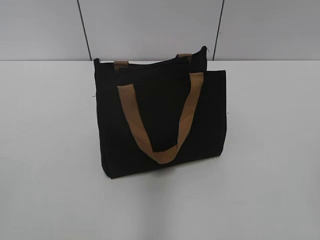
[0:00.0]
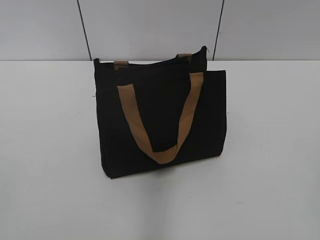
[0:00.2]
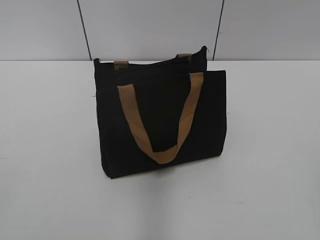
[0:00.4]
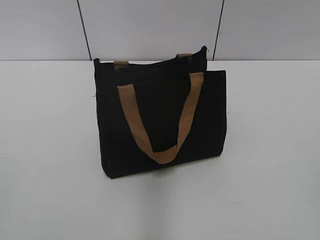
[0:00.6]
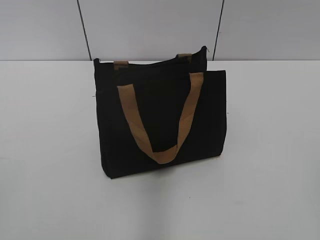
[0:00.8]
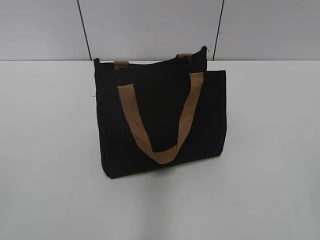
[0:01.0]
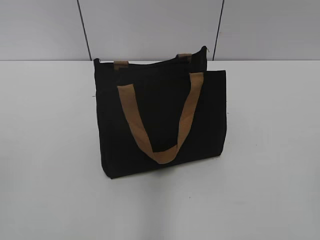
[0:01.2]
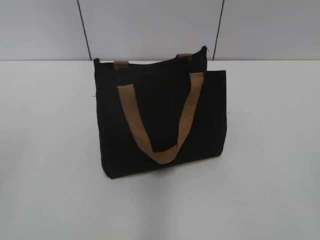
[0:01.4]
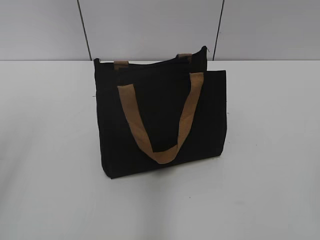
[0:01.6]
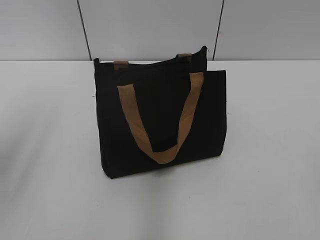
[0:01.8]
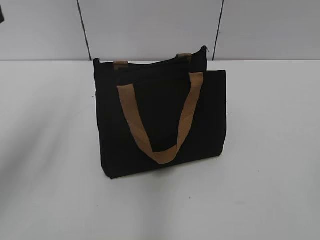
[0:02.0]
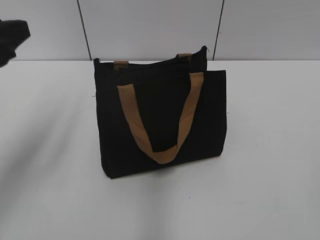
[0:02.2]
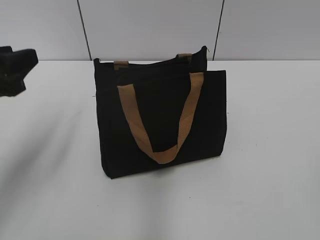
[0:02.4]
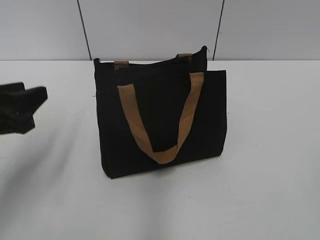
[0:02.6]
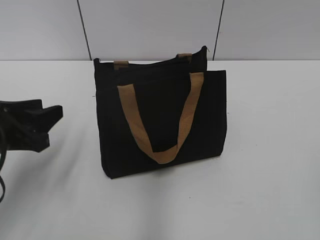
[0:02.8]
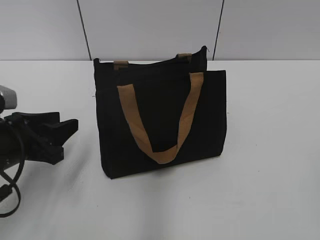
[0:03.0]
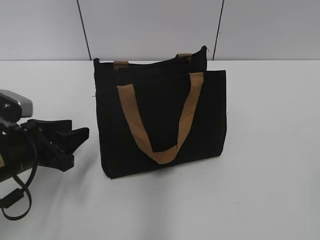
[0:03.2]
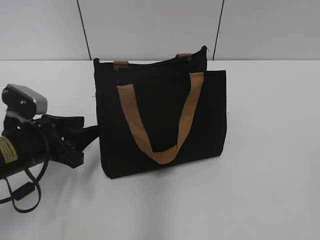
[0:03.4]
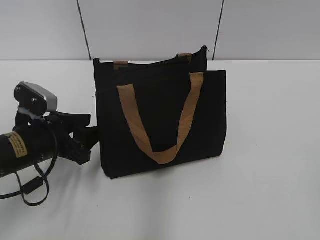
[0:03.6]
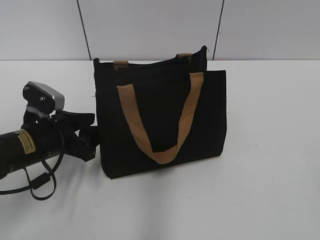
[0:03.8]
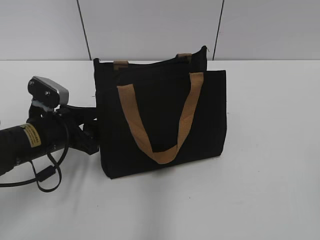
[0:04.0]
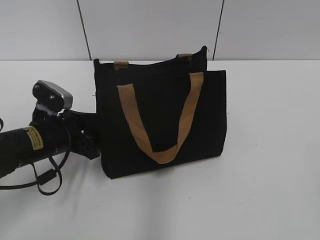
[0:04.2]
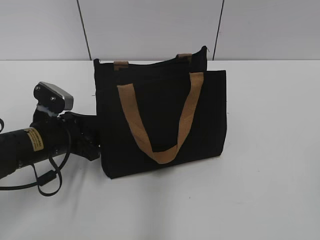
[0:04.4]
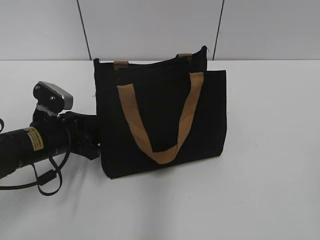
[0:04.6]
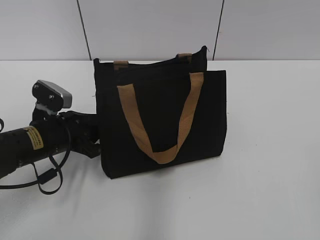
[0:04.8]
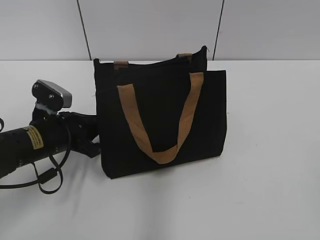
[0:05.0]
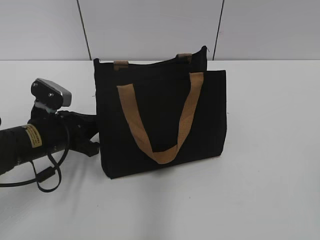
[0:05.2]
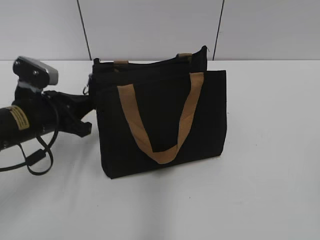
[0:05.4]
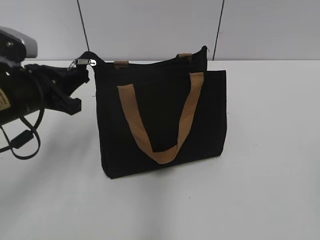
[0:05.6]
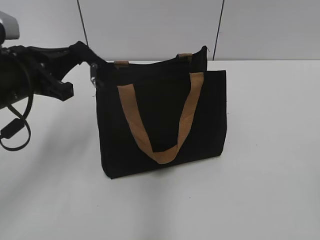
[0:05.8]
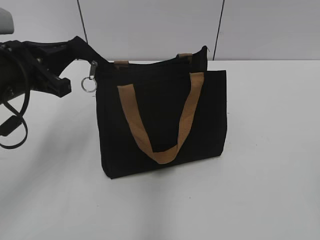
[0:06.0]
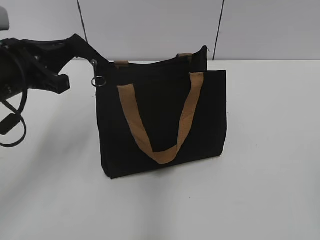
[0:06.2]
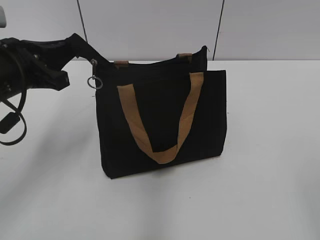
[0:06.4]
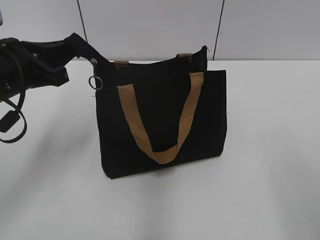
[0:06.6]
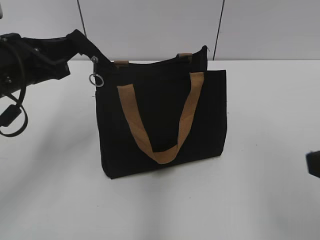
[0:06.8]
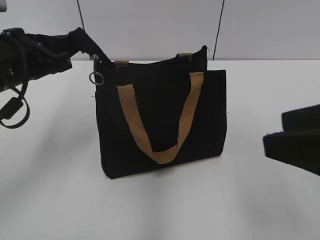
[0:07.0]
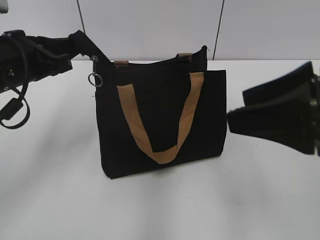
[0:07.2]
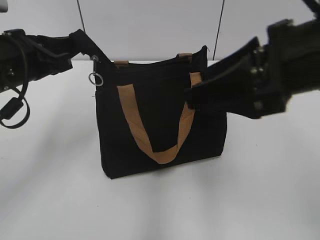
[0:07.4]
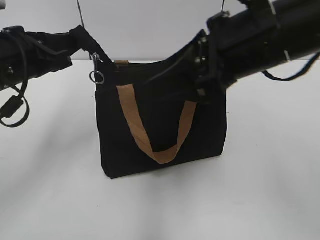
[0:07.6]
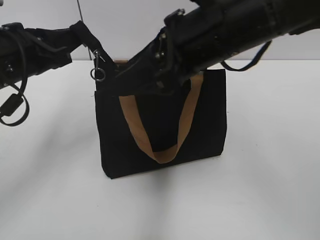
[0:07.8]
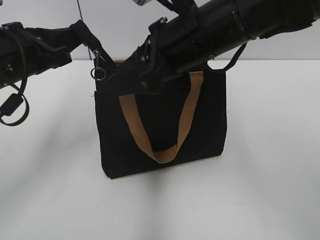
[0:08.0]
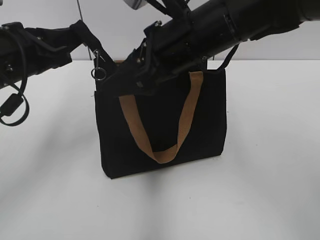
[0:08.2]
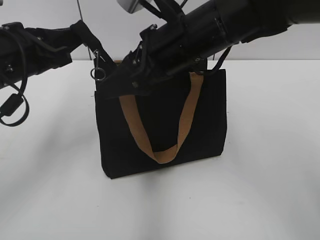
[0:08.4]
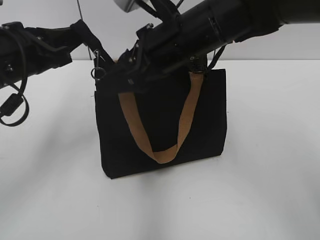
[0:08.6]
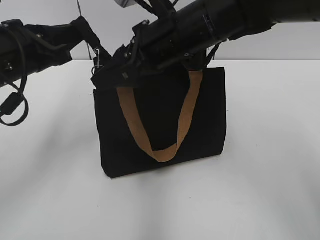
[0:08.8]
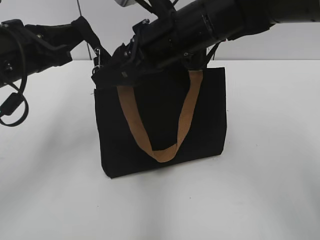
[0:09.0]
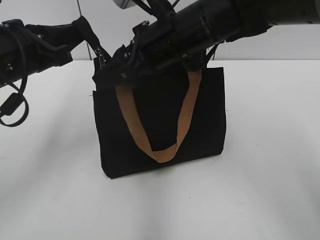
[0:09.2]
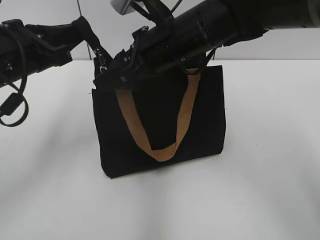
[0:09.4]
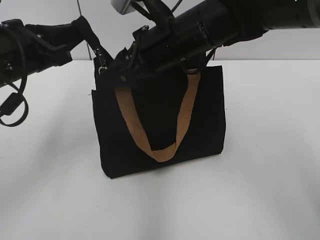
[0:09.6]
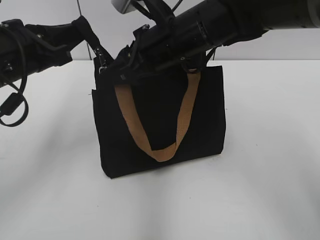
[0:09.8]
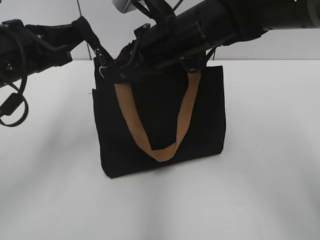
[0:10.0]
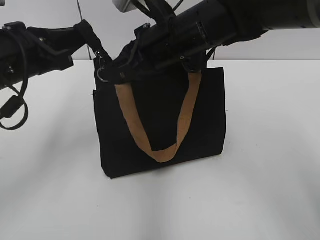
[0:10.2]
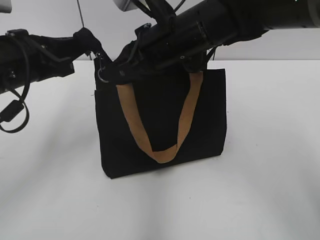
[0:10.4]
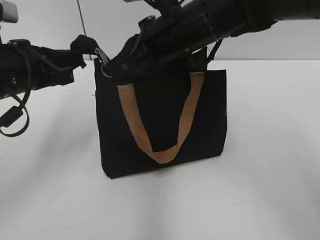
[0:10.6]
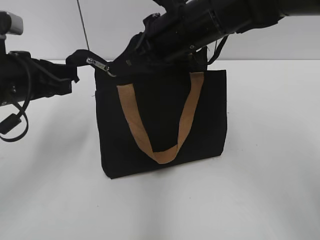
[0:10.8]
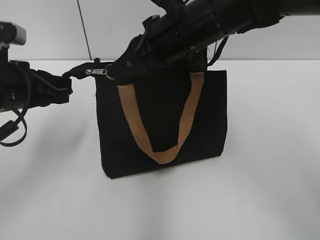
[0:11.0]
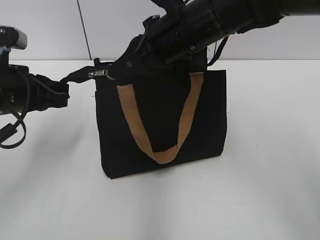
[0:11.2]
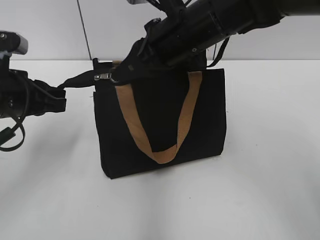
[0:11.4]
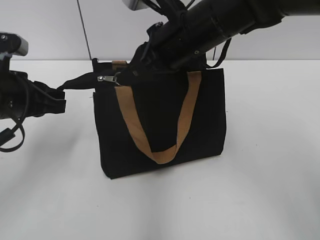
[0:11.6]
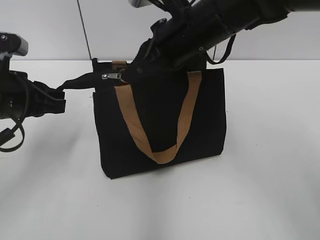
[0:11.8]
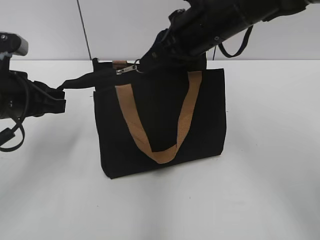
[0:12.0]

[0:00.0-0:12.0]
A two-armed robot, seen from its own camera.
0:01.6 to 0:03.0: The left gripper shifts some 20 cm downward and forward.
0:03.0 to 0:04.4: The left gripper goes approximately 10 cm forward and downward.
0:04.4 to 0:06.0: The left gripper heads upward, covering roughly 15 cm, and closes up.
0:06.0 to 0:07.6: The right gripper travels forward and to the left by about 30 cm.
0:07.6 to 0:09.0: The right gripper goes some 15 cm forward and to the left.
0:09.0 to 0:10.4: The right gripper closes.

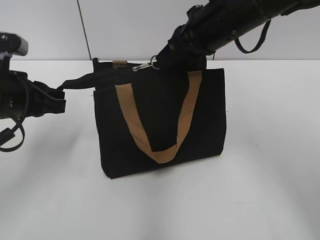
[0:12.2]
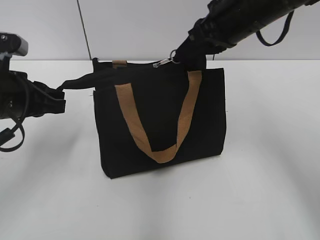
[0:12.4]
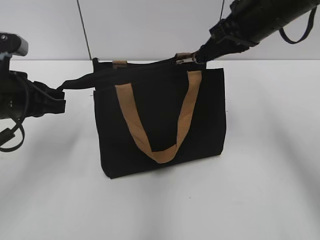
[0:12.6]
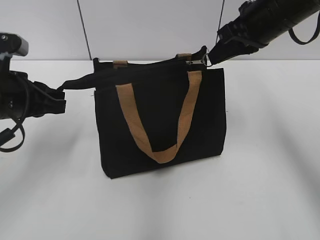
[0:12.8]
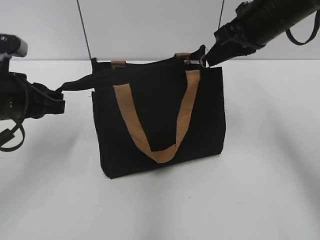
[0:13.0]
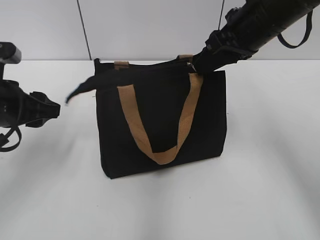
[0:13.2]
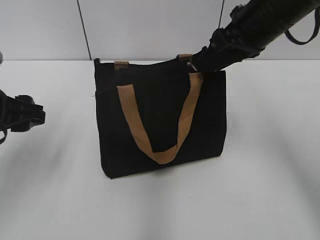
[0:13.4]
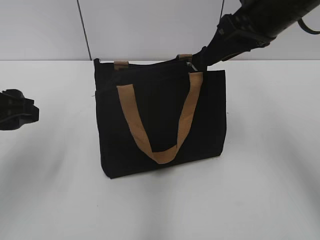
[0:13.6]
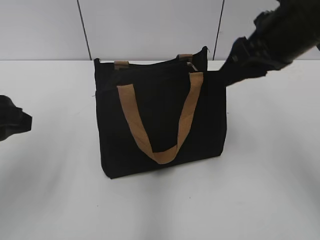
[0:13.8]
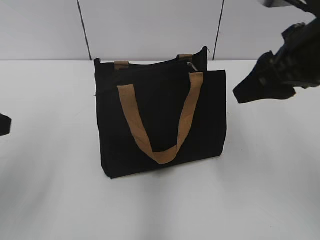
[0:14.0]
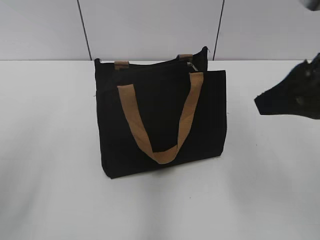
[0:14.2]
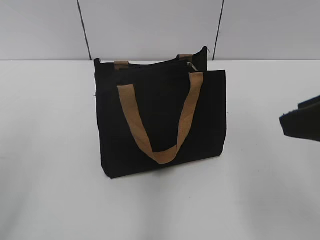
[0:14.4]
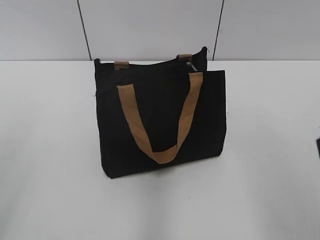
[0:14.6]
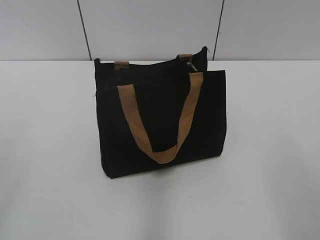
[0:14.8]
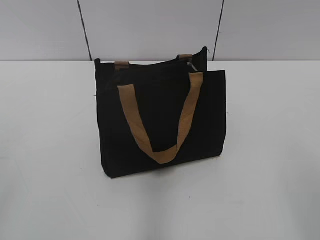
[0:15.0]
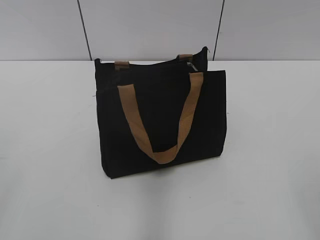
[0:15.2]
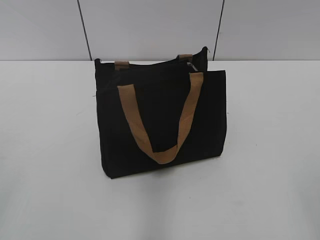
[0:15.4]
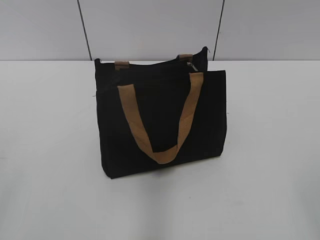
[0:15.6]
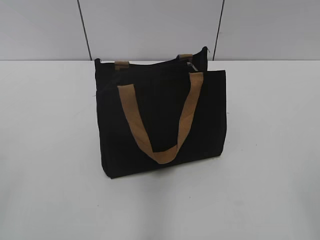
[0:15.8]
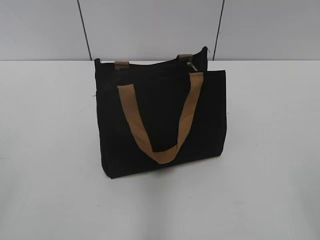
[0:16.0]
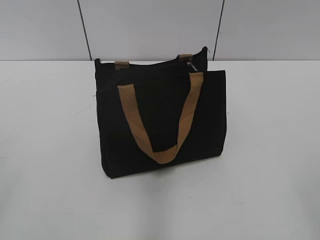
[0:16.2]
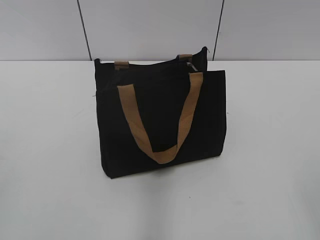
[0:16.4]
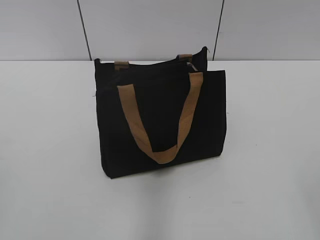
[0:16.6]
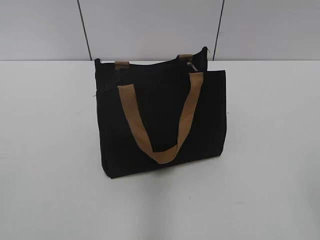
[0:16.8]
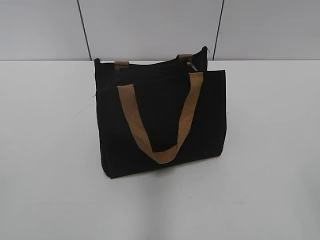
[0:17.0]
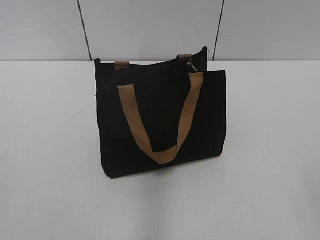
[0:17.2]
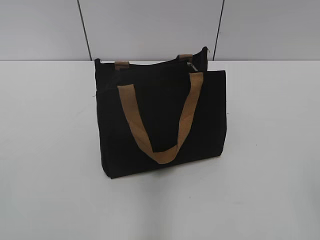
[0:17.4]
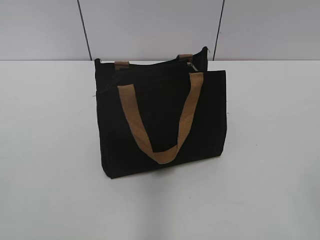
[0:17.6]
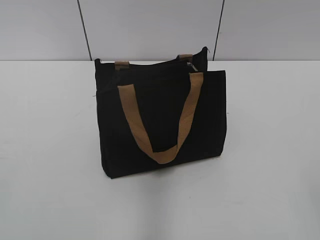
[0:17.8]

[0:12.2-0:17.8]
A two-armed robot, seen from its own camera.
0:12.2 to 0:13.6: The left gripper opens; the right gripper travels to the right by approximately 5 cm, and opens up.
0:13.6 to 0:15.0: The right gripper goes roughly 30 cm backward. Meanwhile the left gripper moves backward, roughly 20 cm.

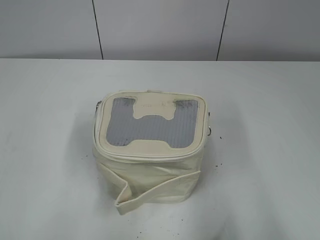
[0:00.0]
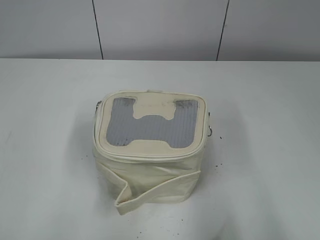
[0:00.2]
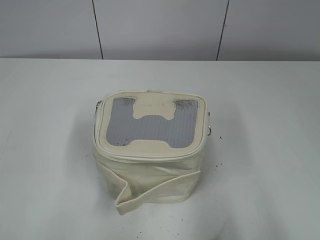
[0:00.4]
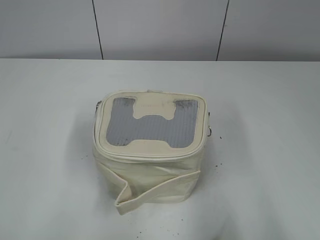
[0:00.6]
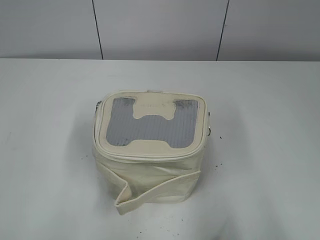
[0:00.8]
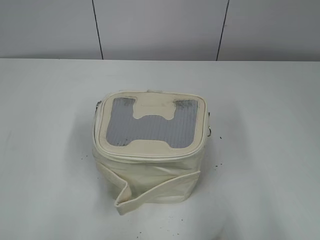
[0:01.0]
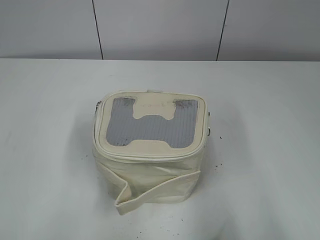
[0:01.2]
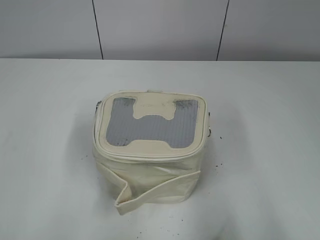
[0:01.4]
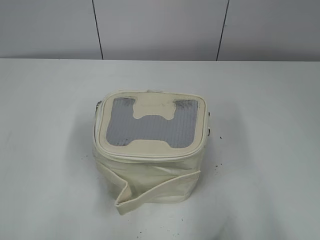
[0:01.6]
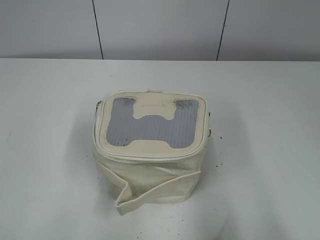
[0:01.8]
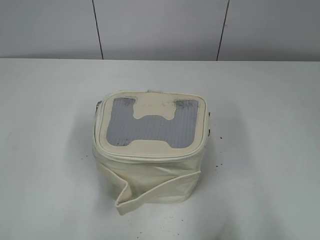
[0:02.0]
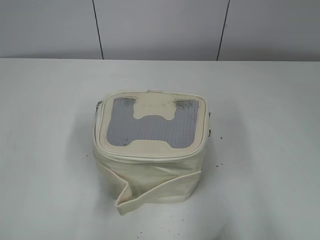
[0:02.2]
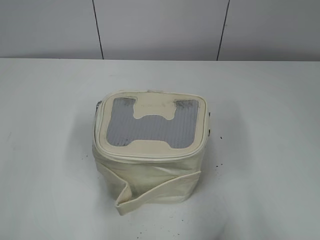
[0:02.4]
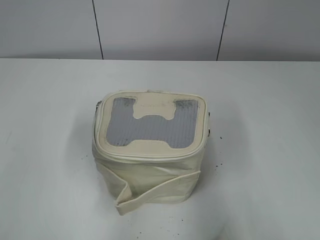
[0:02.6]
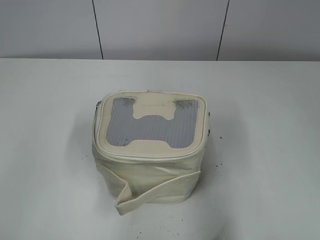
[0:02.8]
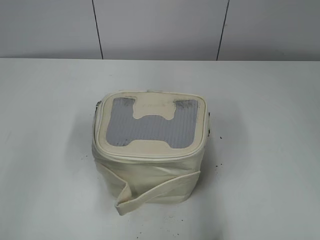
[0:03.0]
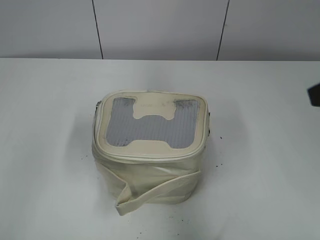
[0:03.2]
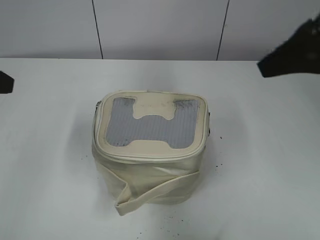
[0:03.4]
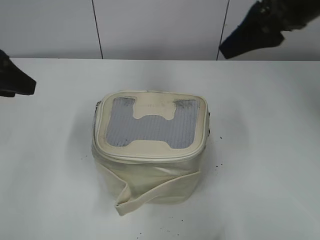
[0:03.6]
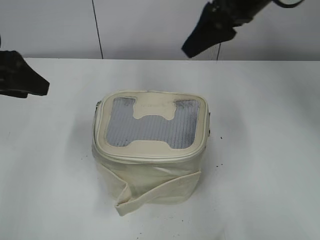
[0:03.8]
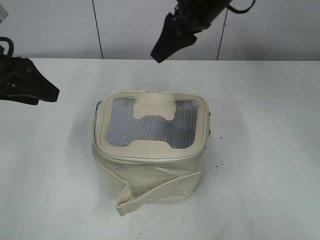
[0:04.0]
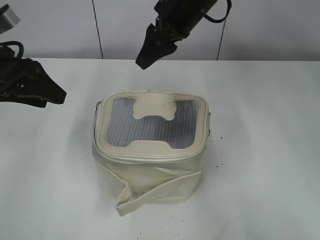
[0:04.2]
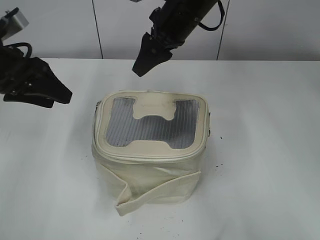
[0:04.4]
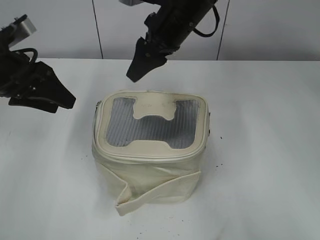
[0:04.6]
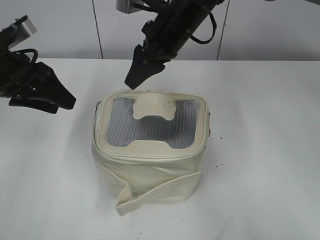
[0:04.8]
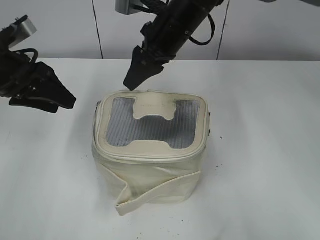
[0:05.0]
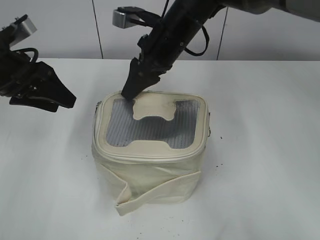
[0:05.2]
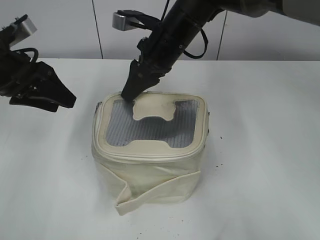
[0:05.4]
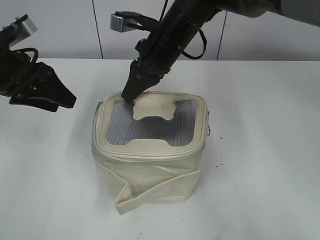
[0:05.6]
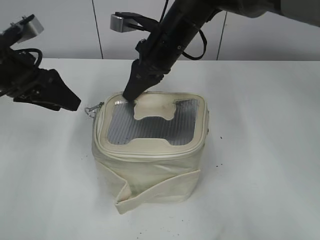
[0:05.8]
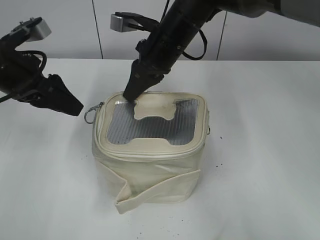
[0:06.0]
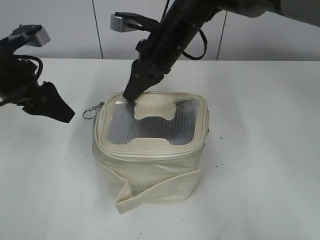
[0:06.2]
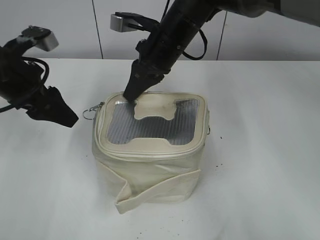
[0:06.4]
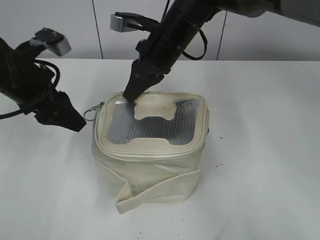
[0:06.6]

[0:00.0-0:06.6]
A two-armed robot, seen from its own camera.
0:01.6 to 0:03.2: The two grippers go about 20 cm forward.
0:03.2 to 0:05.0: The left gripper heads forward and downward, covering some 15 cm. The right gripper travels forward and to the left by about 30 cm.
0:05.0 to 0:06.6: The right gripper closes up.
